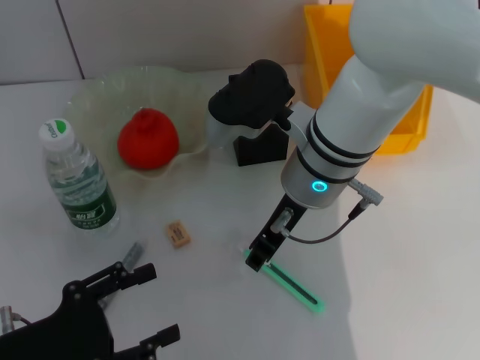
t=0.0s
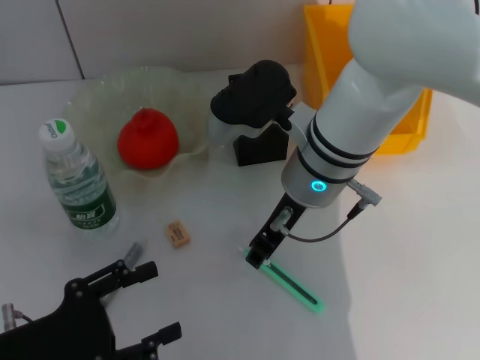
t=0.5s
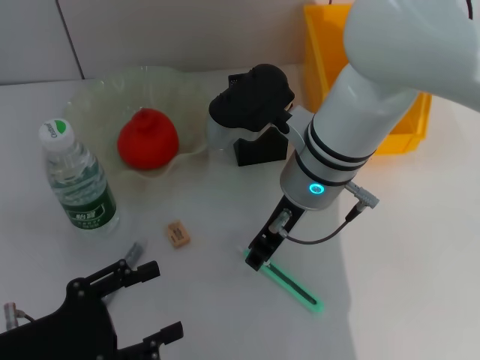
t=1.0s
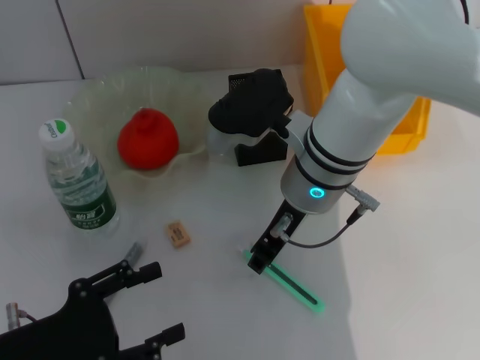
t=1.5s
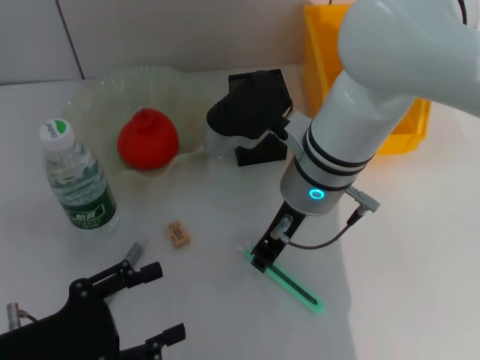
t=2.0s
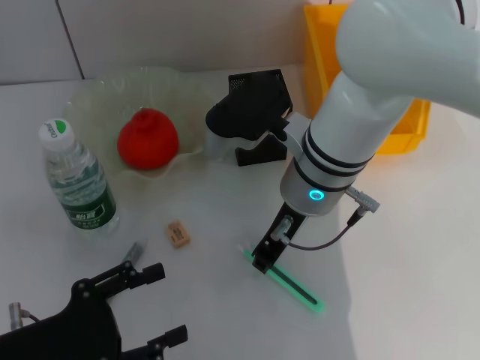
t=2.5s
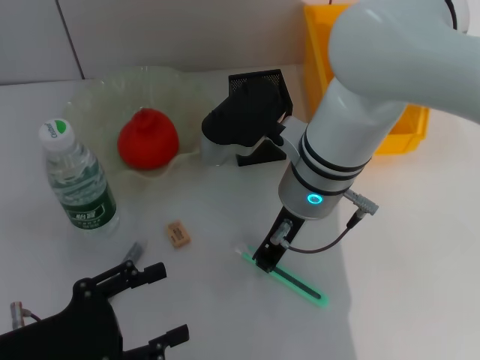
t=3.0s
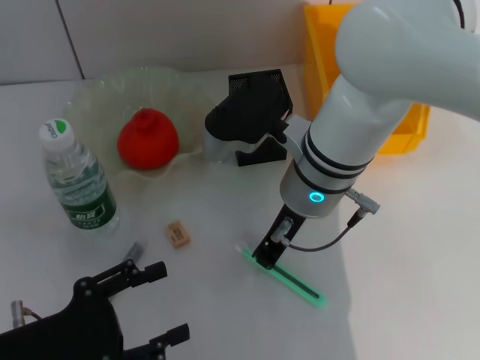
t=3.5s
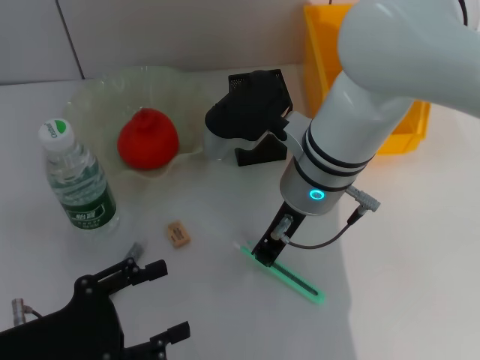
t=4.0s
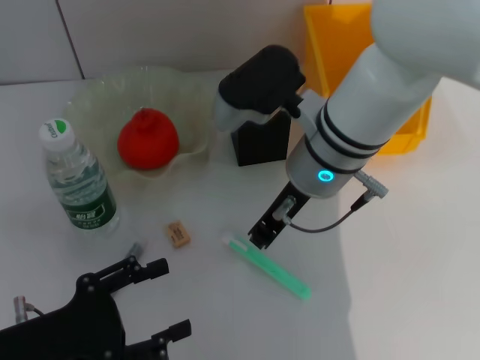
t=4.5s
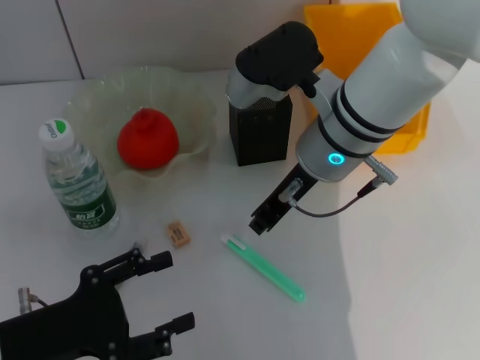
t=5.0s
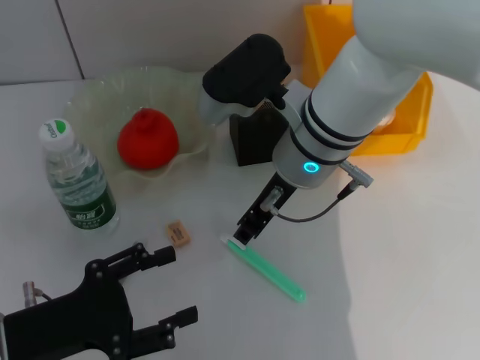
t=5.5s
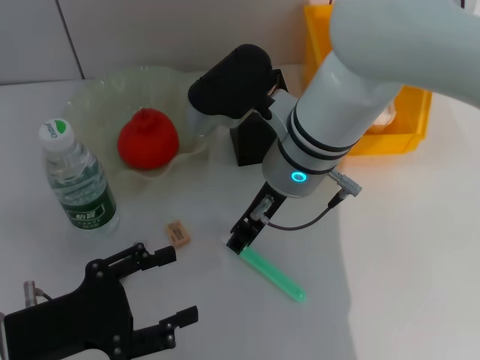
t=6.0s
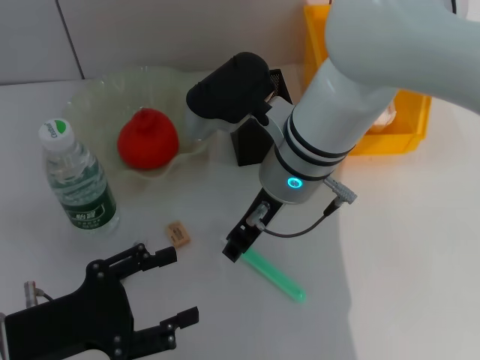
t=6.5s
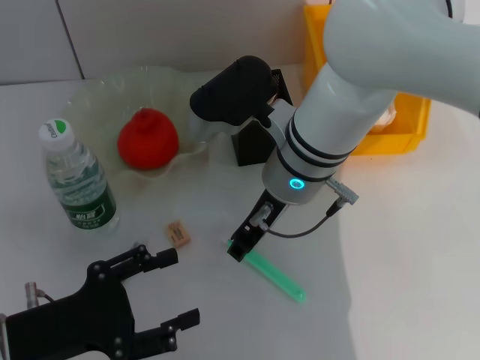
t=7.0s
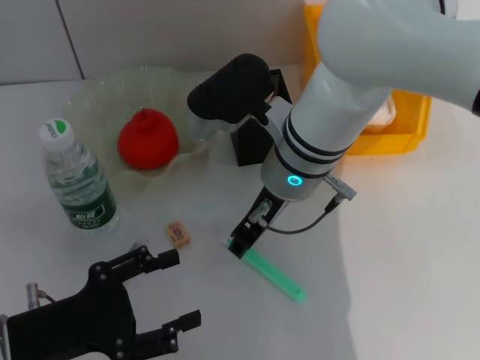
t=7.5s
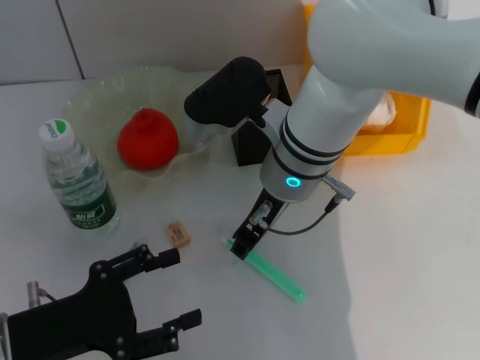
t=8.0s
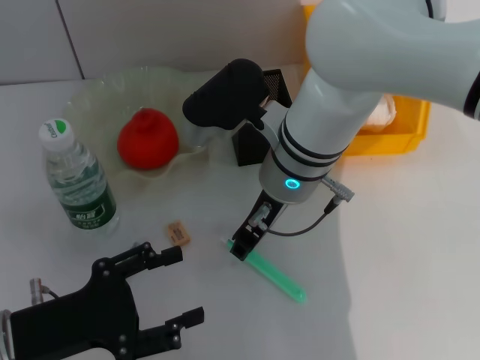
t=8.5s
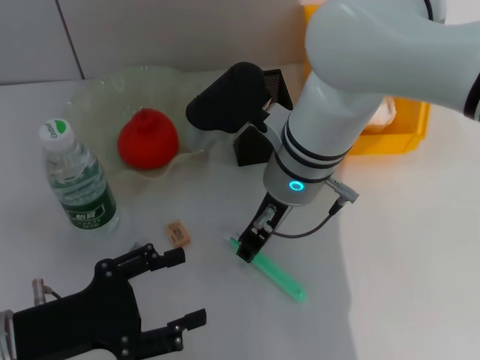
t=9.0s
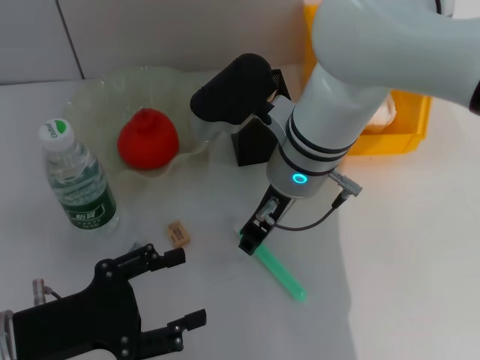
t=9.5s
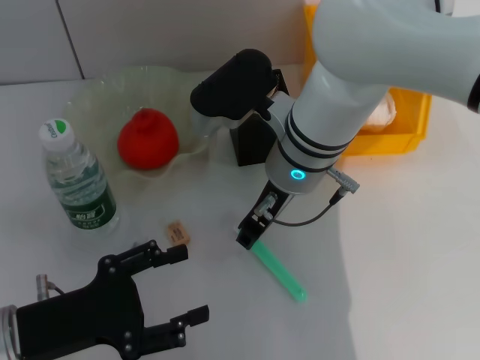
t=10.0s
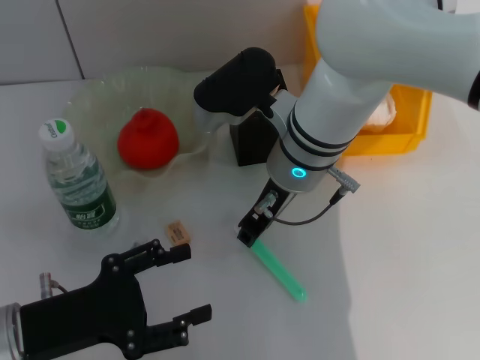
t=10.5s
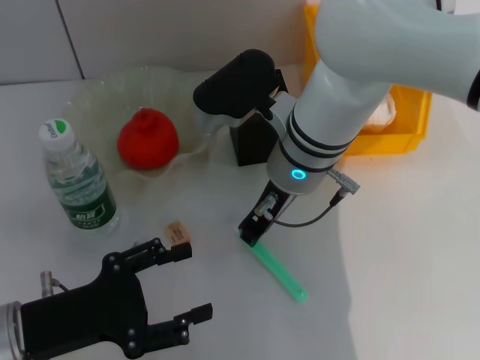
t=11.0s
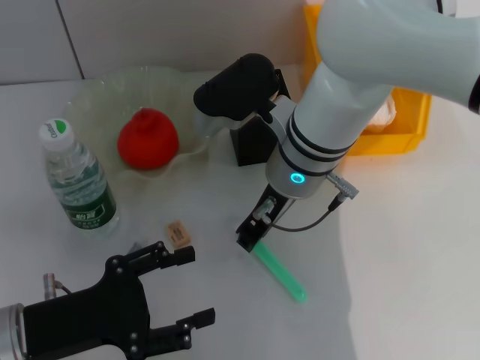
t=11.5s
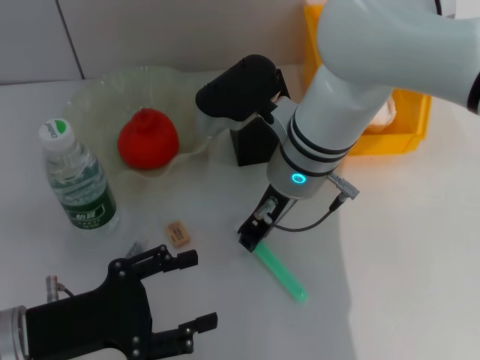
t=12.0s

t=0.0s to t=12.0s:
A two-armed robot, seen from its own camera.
t=0.0s to t=2.0s: Both grippers stay put.
t=2.0s to t=4.0s: The right gripper closes up.
t=4.0s to t=6.0s: The right gripper opens its fingers.
t=6.0s to t=8.0s: The grippers make only small movements.
t=8.0s to t=10.0s: Both grippers stay about where they are.
t=10.0s to t=12.0s: Both grippers stay put.

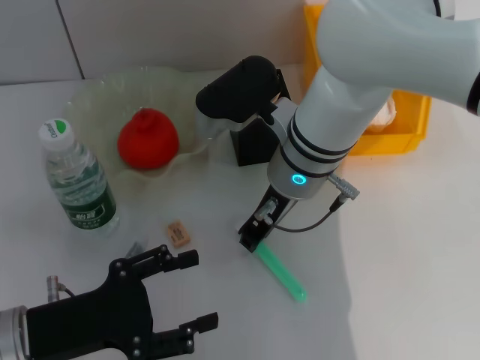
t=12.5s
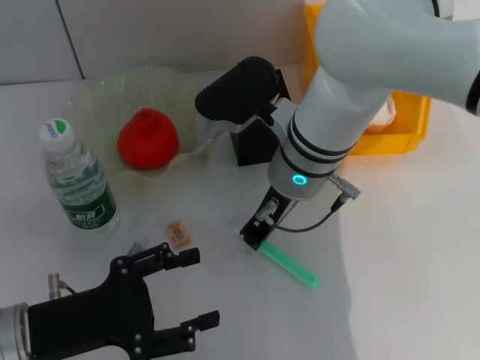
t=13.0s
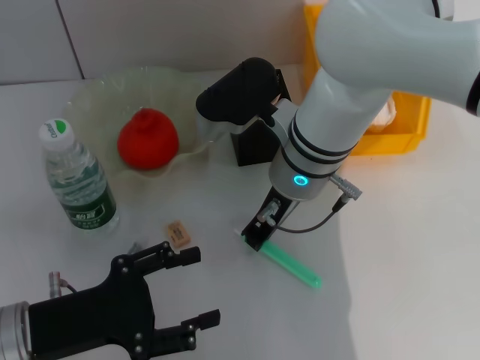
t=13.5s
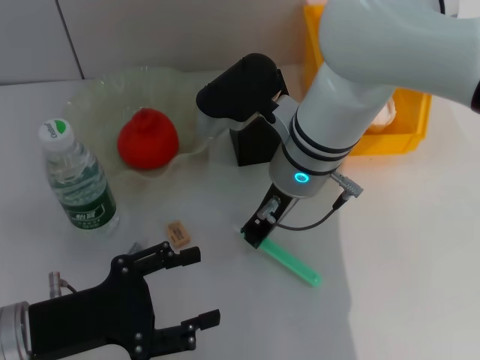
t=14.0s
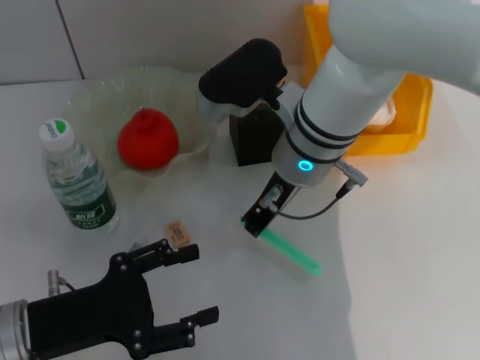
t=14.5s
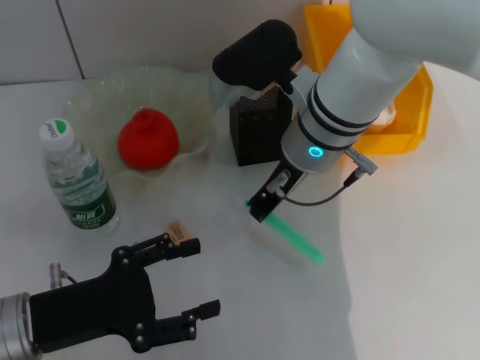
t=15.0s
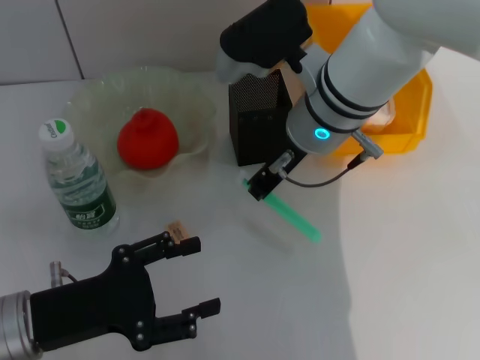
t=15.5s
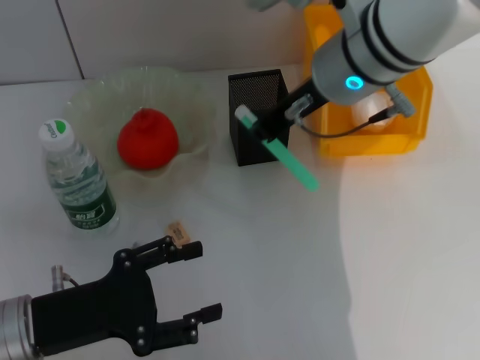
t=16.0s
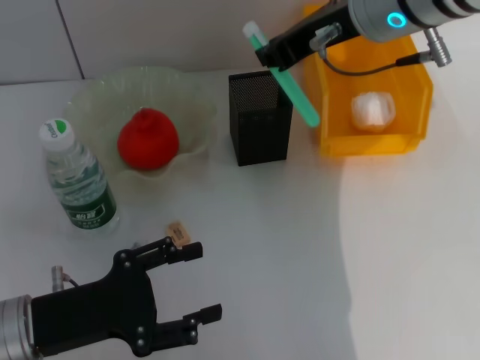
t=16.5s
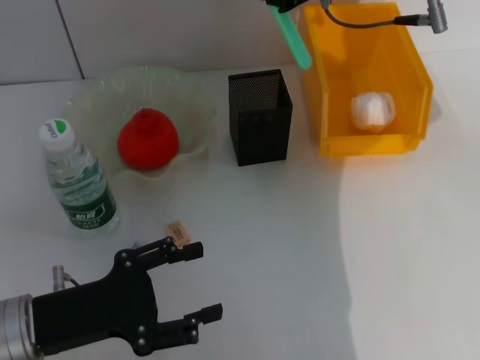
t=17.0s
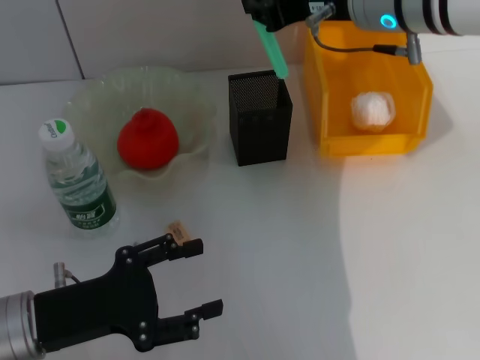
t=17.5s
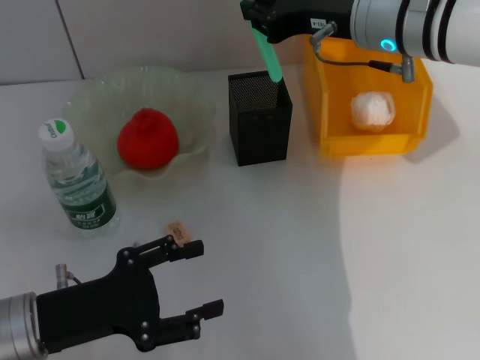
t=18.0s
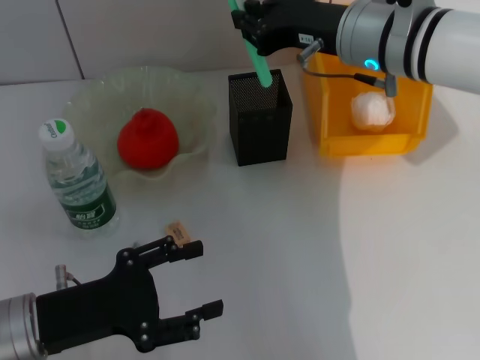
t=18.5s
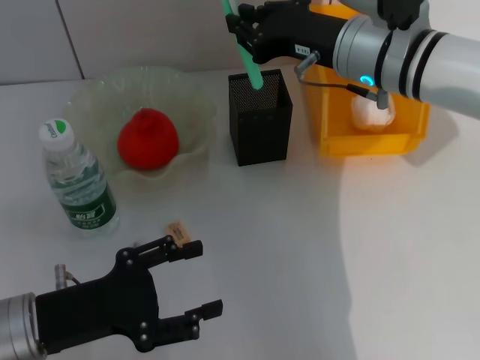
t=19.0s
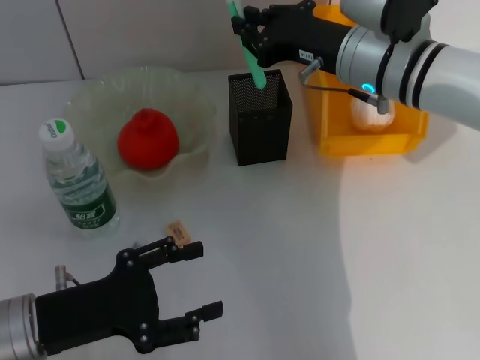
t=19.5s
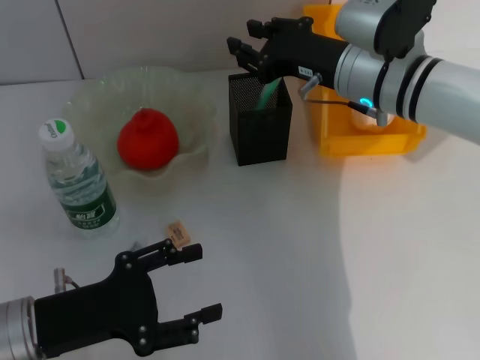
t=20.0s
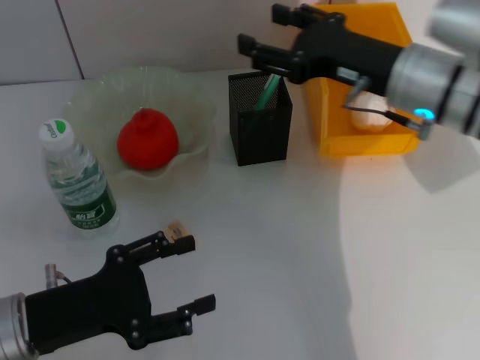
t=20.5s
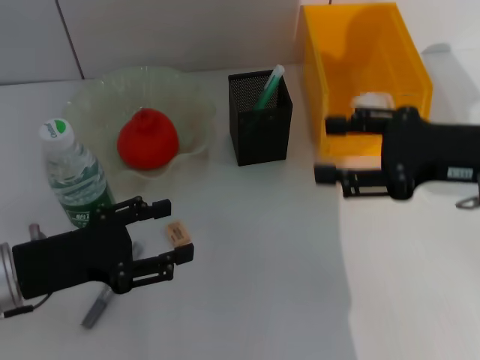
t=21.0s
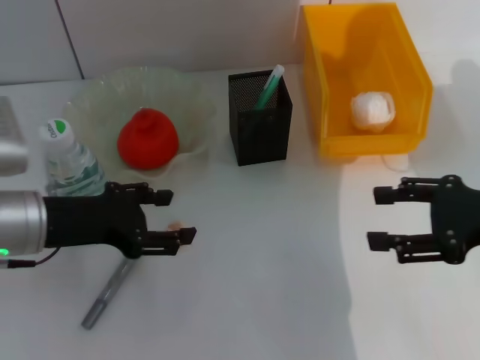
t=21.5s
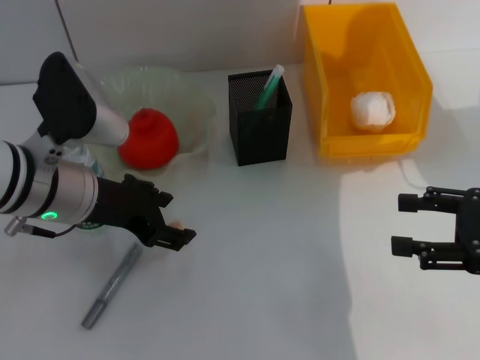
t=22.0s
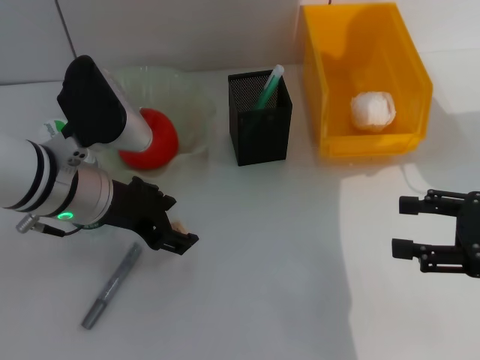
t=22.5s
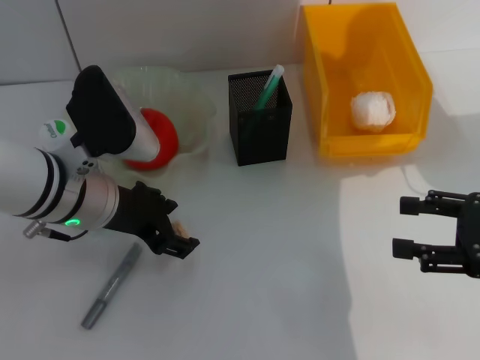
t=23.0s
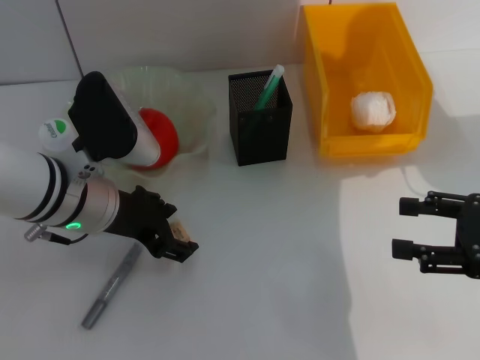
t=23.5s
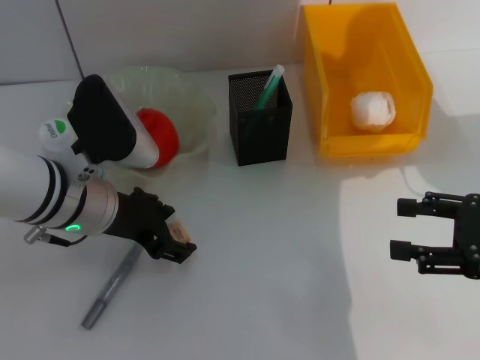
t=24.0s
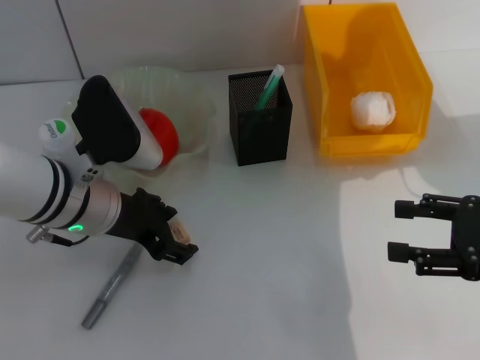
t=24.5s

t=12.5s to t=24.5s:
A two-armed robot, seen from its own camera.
Step, t=14.0s to t=20.5s: Place the blue utility knife into the pen holder with the right hand.
t=12.5s to t=14.5s: The grippers make only small movements.
t=14.5s to t=16.5s: The right gripper goes some 15 cm upward and to the right.
t=16.5s to t=18.5s: The right gripper moves downward, about 10 cm.
t=18.5s to t=20.5s: The right gripper changes place by about 5 cm, and opens its fingers.
t=20.5s to t=22.5s: The left gripper heads forward, to the right and upward, covering about 15 cm, while the right gripper is displaced to the right and backward by some 20 cm.
t=22.5s to t=24.5s: There are only small adjustments of the grippers.

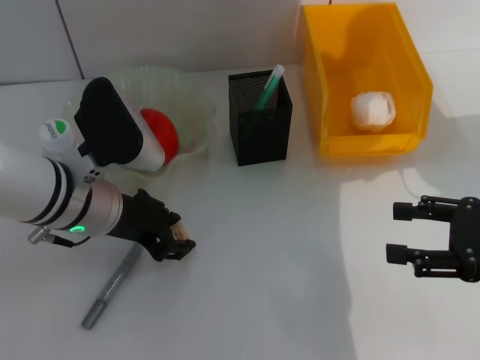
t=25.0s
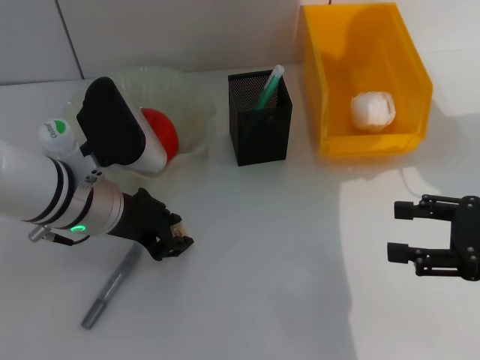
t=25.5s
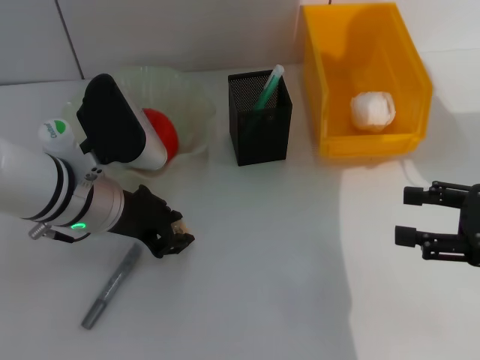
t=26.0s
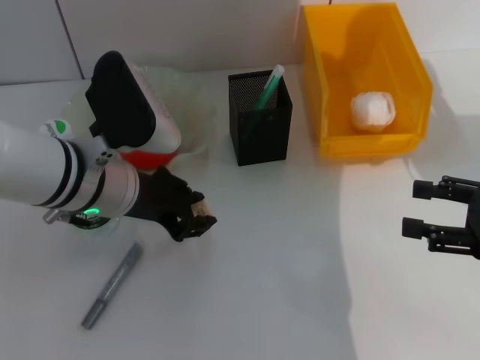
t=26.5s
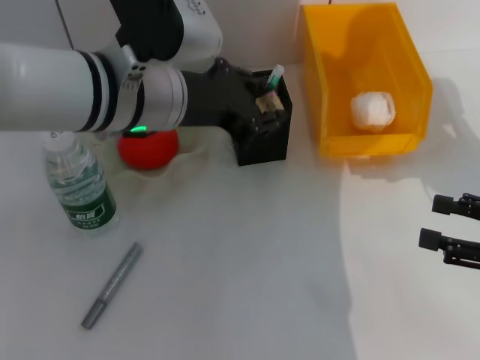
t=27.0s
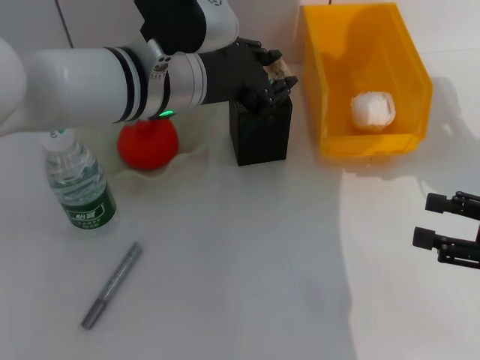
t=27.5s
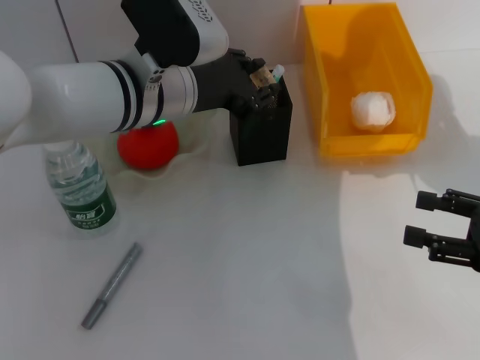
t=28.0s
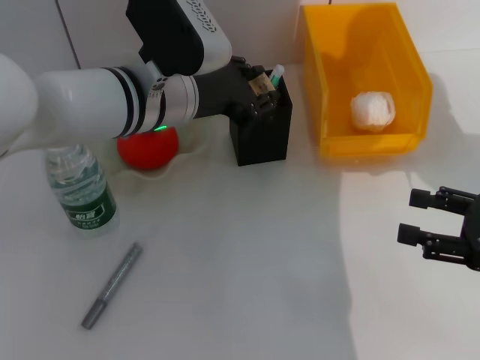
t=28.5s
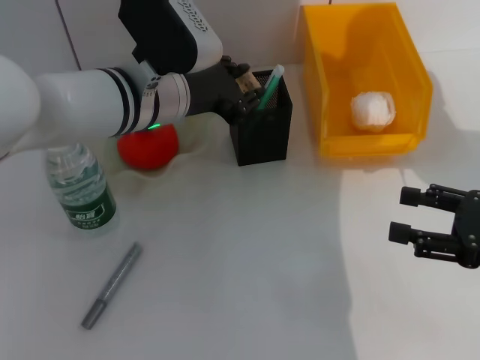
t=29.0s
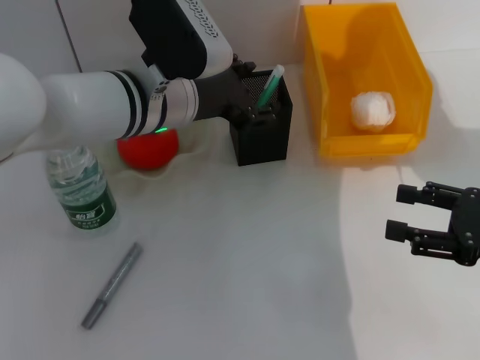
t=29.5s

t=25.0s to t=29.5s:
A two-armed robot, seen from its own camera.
t=25.0s to t=27.0s: The left gripper travels upward and to the right by approximately 10 cm.
t=27.0s to t=29.5s: The left gripper ends up approximately 5 cm from where it was.
